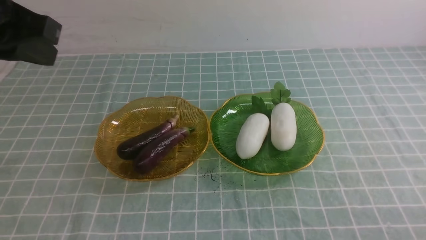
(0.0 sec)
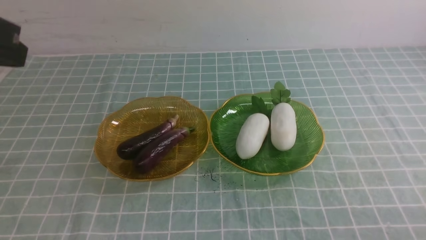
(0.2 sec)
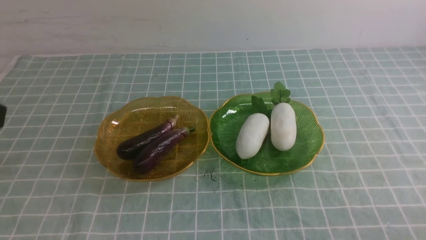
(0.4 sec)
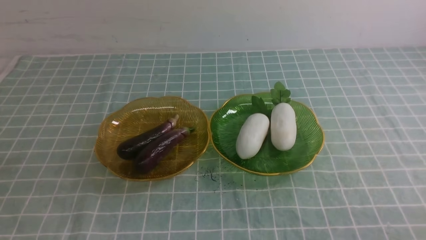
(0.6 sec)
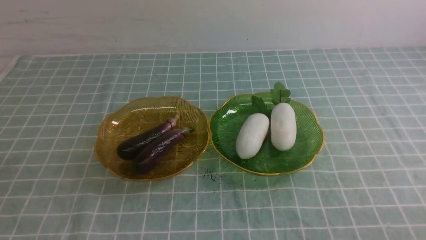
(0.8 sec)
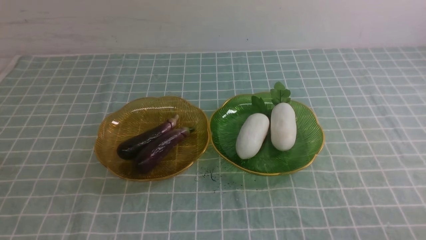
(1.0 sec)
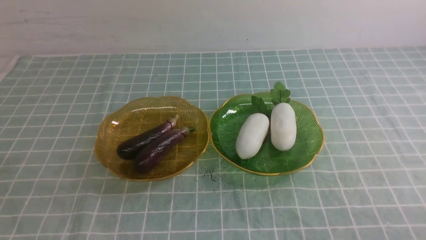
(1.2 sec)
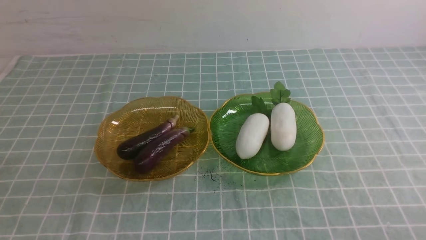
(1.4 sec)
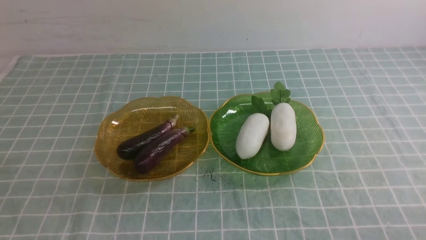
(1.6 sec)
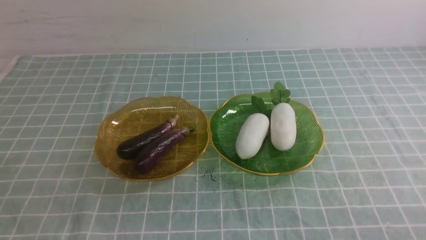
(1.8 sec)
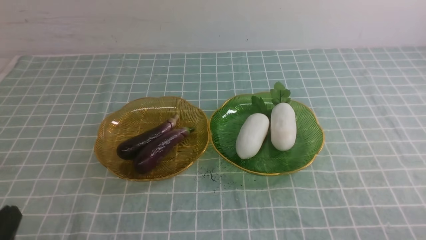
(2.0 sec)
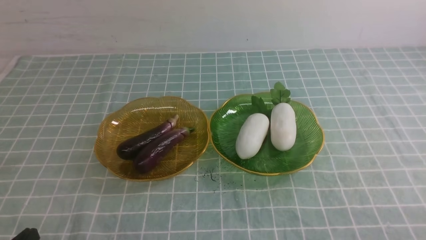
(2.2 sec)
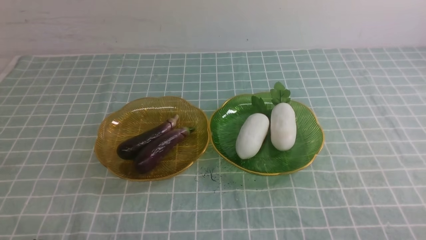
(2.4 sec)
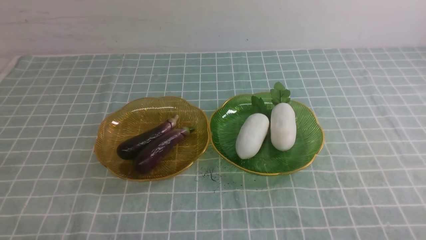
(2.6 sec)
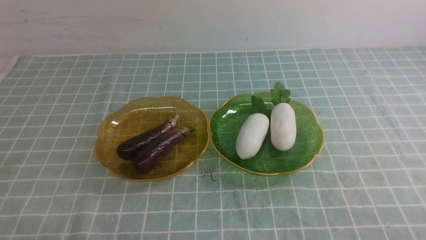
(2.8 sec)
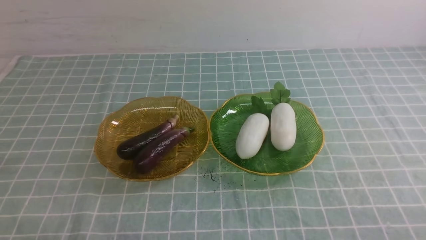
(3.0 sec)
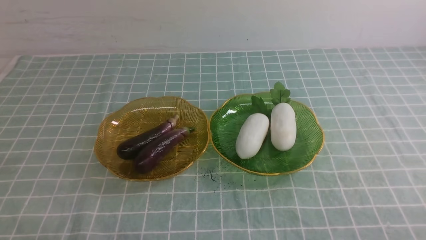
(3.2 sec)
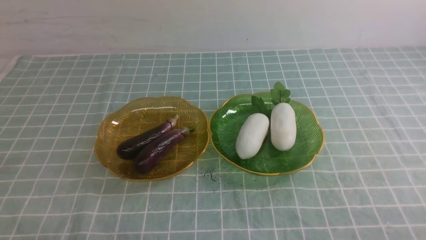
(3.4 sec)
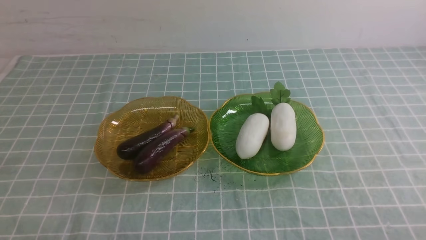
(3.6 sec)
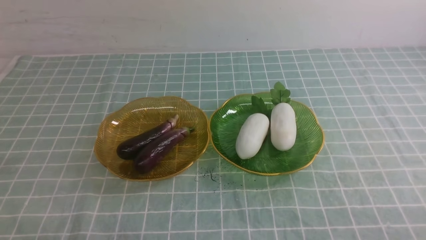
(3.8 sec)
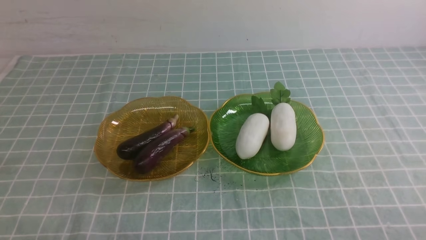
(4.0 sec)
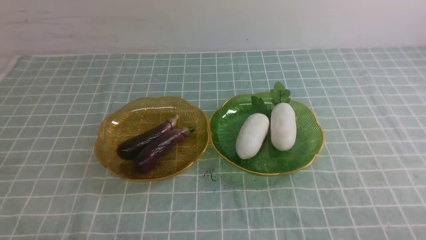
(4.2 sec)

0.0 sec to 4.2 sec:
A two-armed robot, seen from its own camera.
0.0 sec to 1.4 sec: The left gripper heads backward and downward, covering some 25 cm.
2.8 sec to 4.2 sec: Both grippers stay put.
